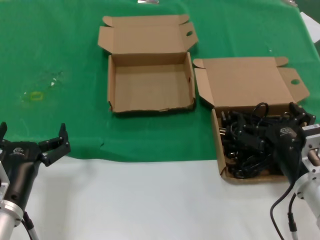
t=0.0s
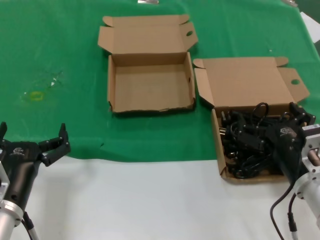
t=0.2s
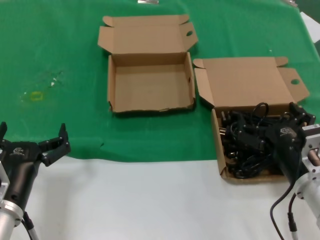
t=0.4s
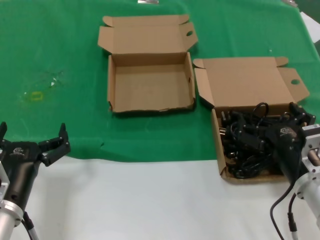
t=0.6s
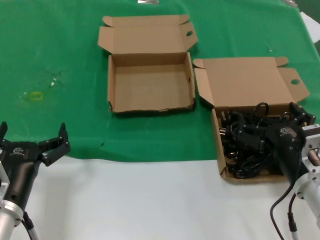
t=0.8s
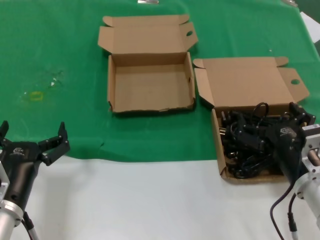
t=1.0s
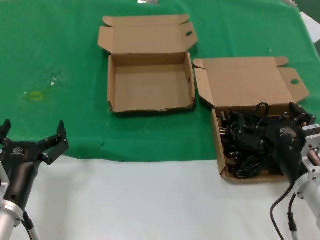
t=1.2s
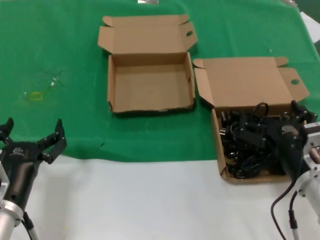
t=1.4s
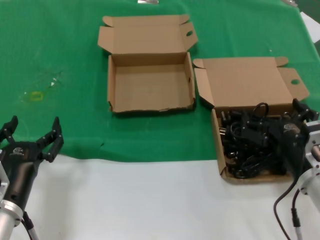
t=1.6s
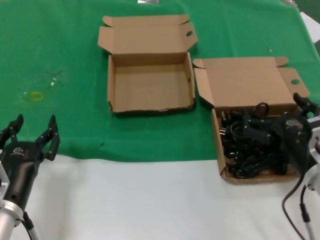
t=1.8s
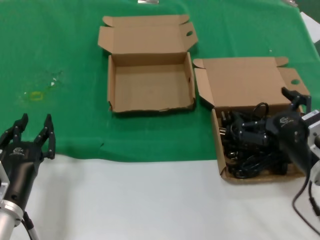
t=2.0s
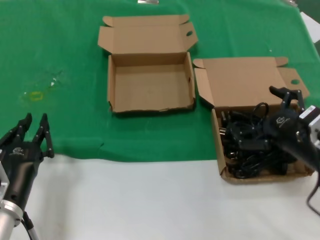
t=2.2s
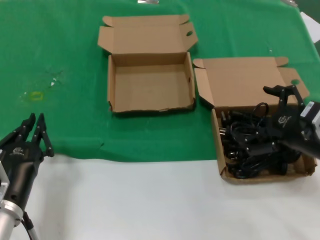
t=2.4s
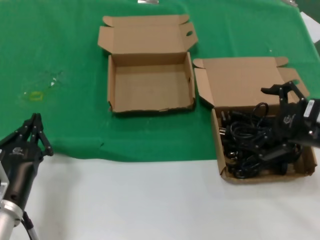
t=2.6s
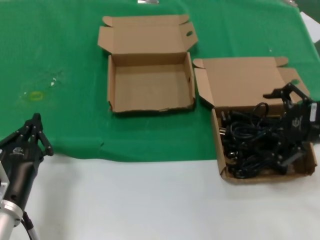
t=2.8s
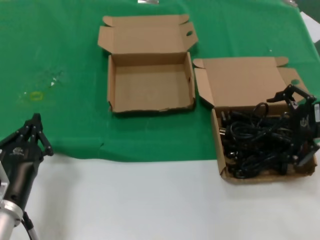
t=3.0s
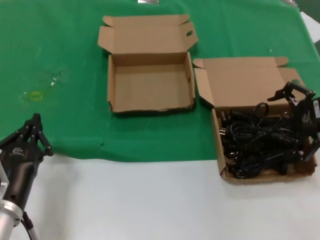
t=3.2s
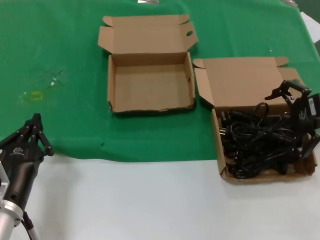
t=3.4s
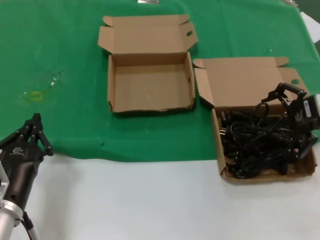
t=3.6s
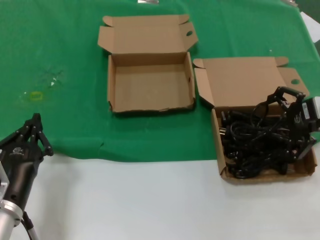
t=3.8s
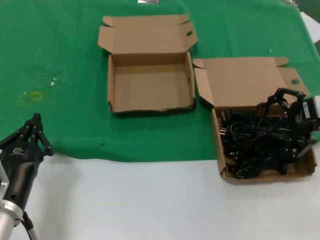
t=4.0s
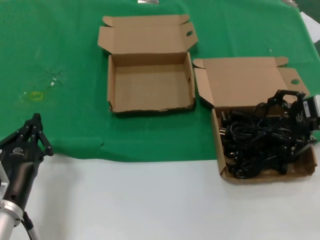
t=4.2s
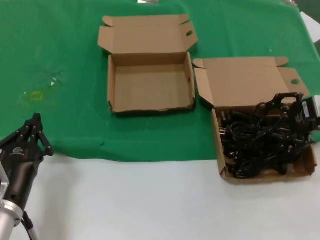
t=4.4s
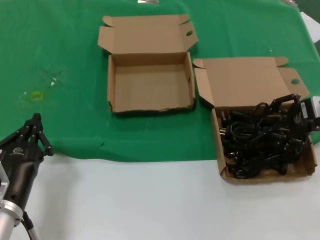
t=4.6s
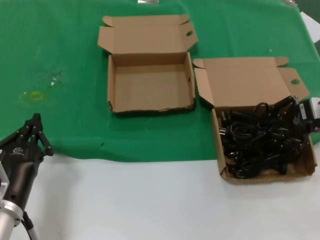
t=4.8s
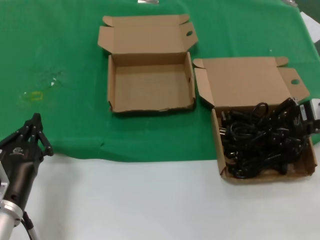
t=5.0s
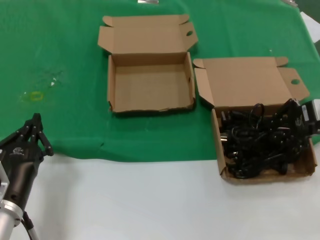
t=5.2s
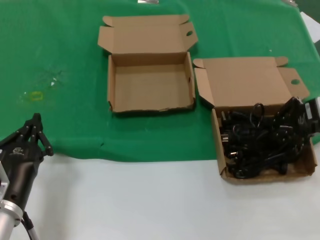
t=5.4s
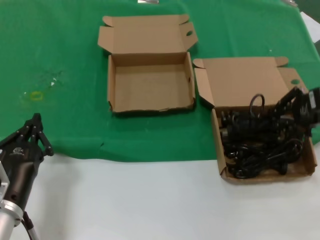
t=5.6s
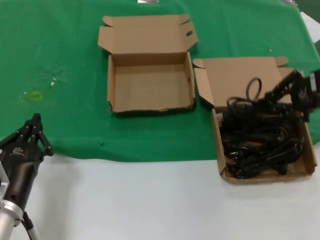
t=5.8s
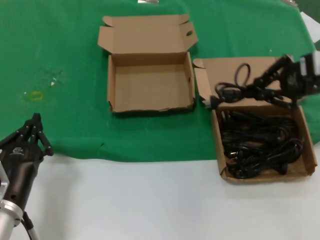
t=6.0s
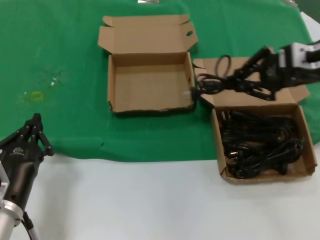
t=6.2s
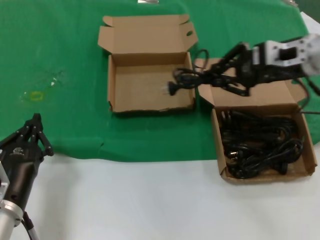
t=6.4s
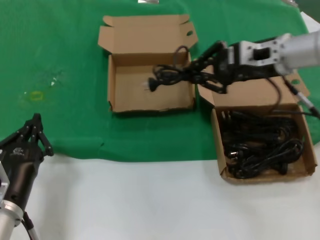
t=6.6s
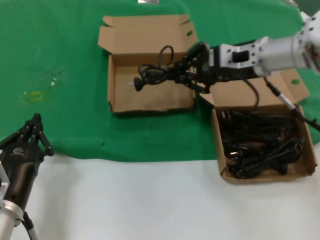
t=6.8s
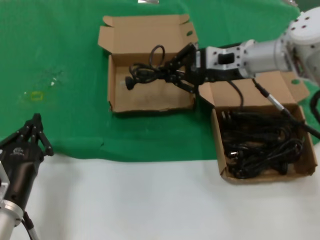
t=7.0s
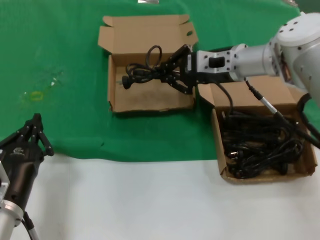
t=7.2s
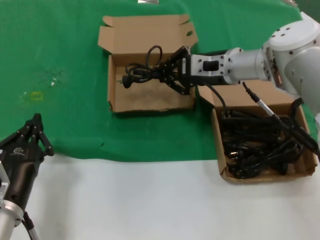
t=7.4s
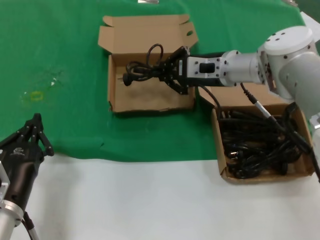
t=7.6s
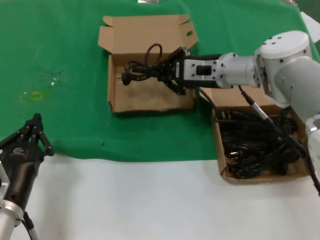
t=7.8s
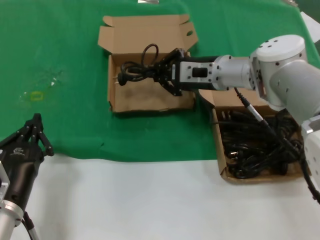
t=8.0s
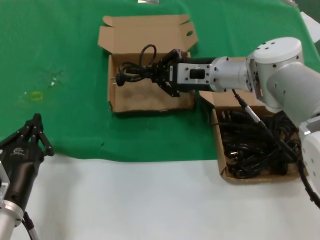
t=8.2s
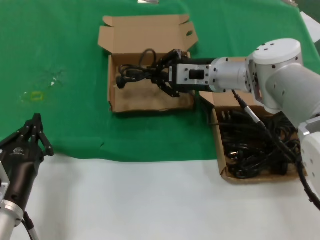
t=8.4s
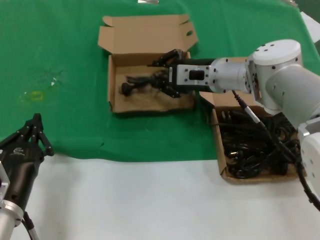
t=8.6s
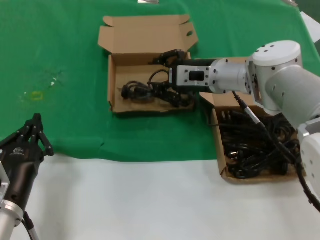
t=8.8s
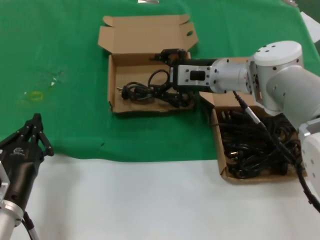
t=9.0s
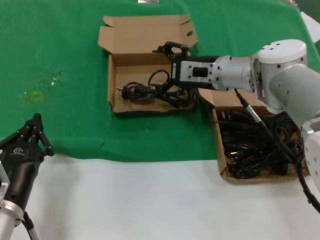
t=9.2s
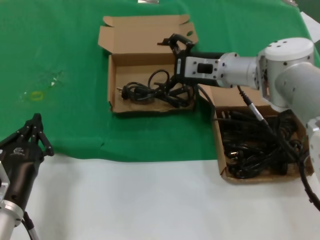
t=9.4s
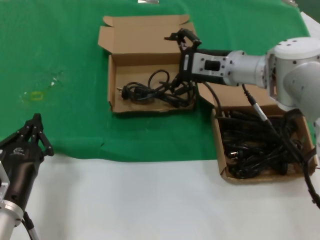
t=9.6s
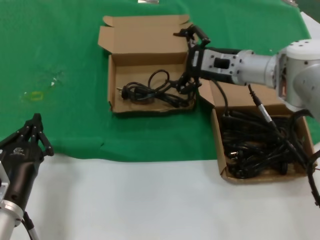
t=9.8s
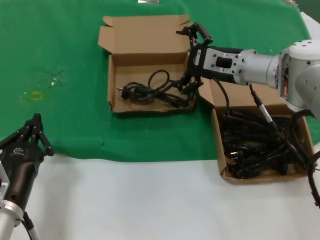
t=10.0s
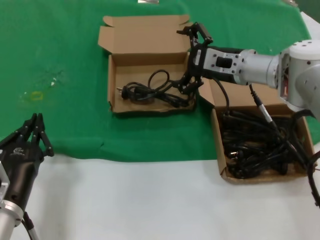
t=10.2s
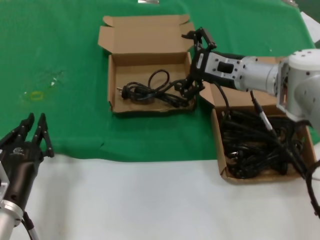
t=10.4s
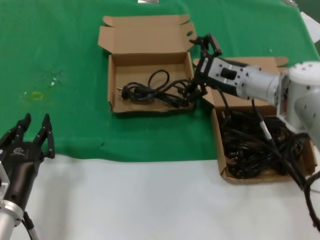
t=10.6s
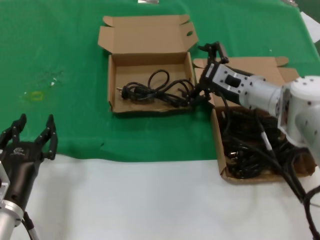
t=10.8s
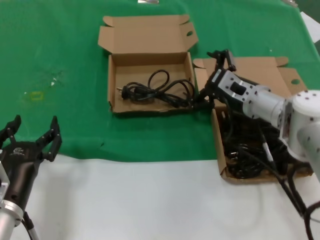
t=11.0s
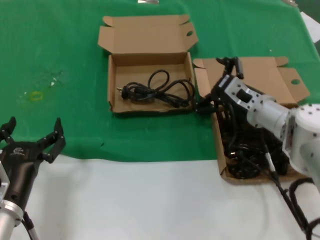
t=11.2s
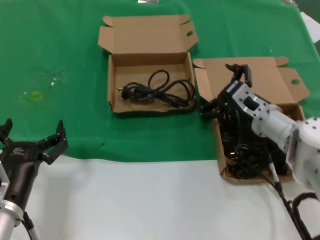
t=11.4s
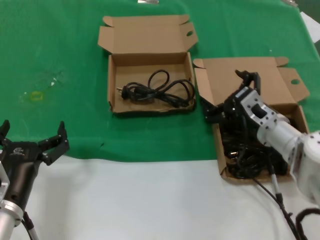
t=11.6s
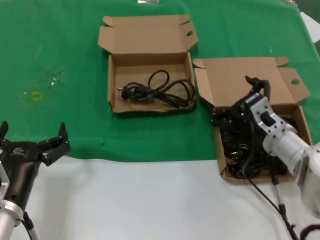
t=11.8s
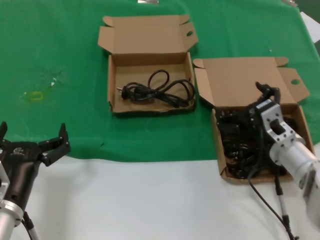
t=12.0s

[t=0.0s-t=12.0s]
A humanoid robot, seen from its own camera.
Task of the whole recording: take the parts from the box containing them and put them into an empty box.
Step, t=0.0s to t=5.2s: Grasp the data cable.
Step, t=5.4s to t=8.6s: Place the data cable in the another box.
t=0.0s to t=1.6s: Both hands stay put.
t=1.6s to t=3.0s: The right hand travels upward, to the right and forward by roughly 20 cm.
t=3.0s to t=4.4s: The right hand heads forward, covering approximately 5 cm.
t=4.4s to t=6.0s: The right hand goes some 10 cm upward.
t=6.0s to t=7.6s: The right hand heads to the left, forward and downward, covering roughly 25 cm.
t=7.6s to t=9.0s: The hands make only small movements.
t=9.0s to t=10.4s: The right hand shifts approximately 5 cm to the right.
t=10.4s to t=12.0s: The right hand is displaced backward and downward by about 20 cm.

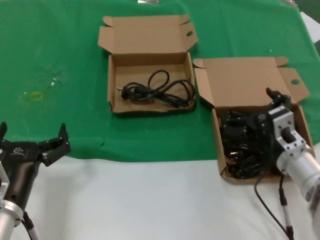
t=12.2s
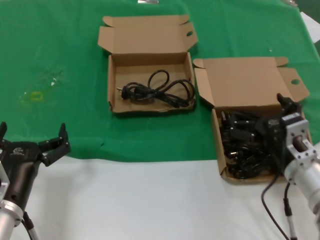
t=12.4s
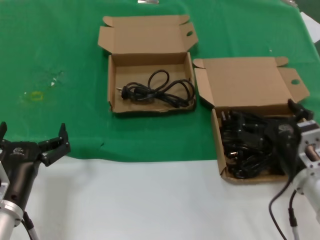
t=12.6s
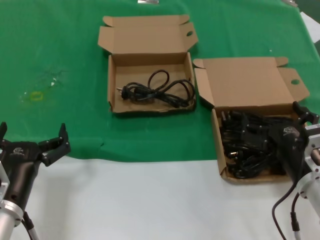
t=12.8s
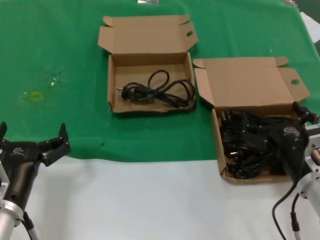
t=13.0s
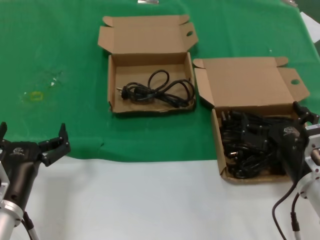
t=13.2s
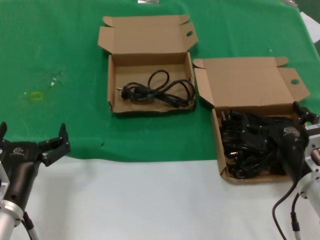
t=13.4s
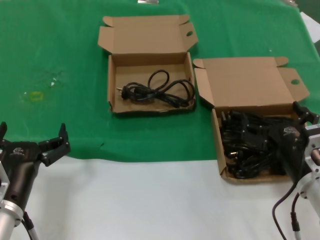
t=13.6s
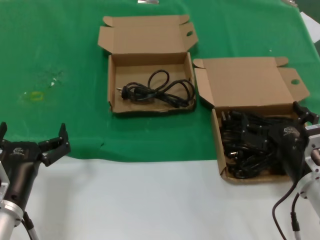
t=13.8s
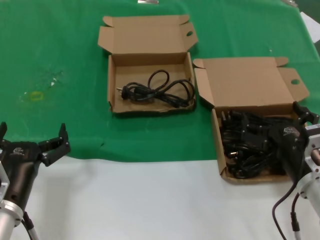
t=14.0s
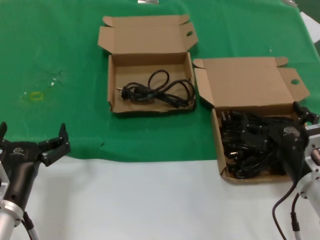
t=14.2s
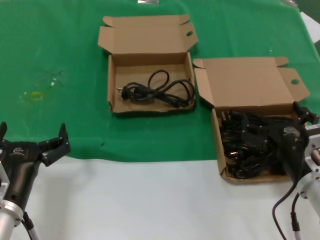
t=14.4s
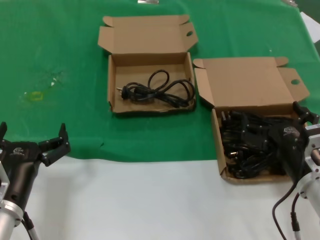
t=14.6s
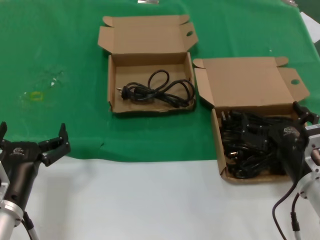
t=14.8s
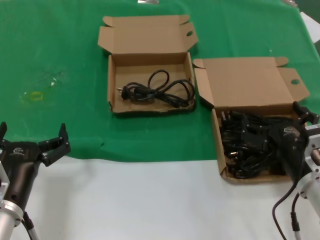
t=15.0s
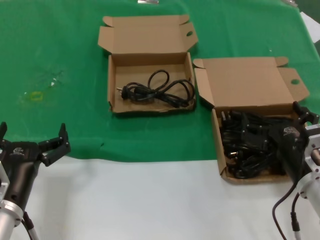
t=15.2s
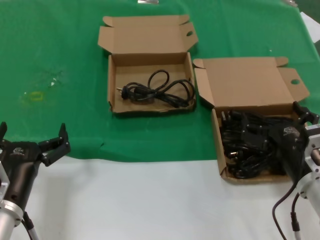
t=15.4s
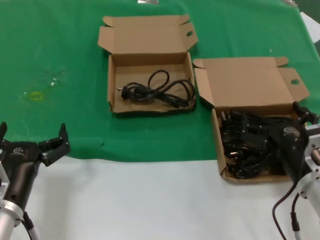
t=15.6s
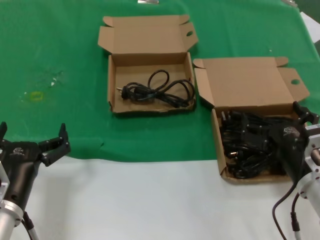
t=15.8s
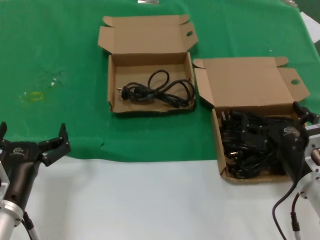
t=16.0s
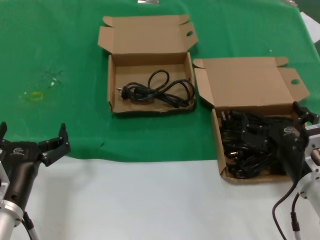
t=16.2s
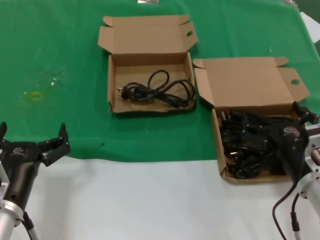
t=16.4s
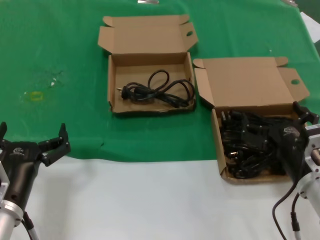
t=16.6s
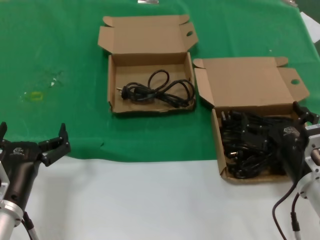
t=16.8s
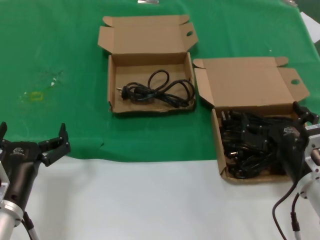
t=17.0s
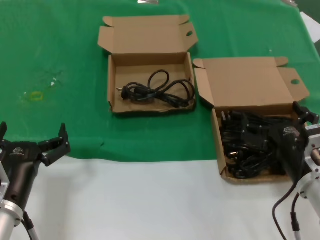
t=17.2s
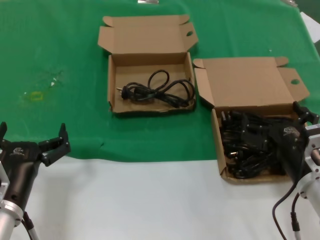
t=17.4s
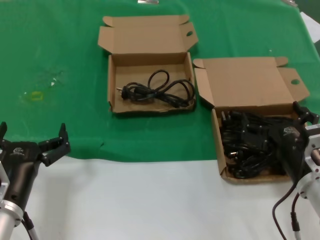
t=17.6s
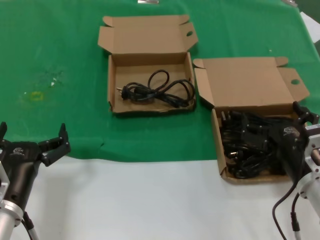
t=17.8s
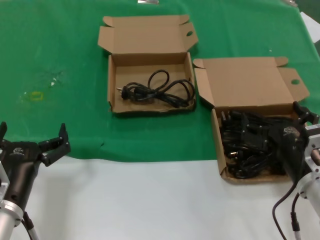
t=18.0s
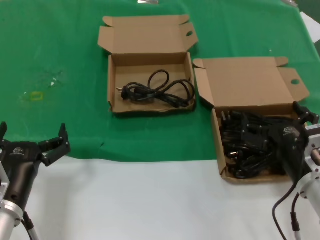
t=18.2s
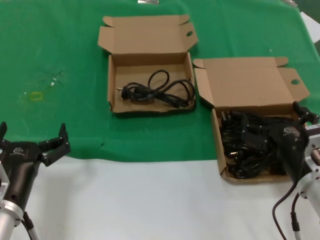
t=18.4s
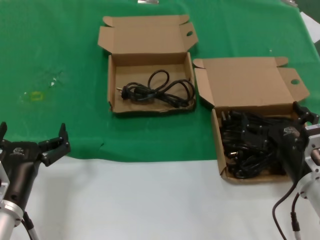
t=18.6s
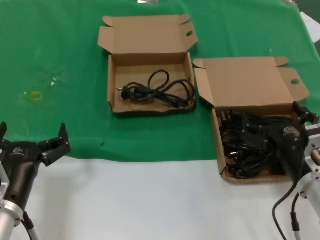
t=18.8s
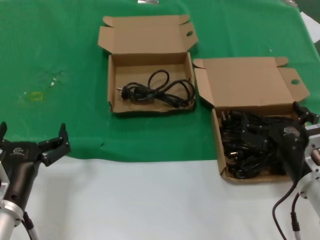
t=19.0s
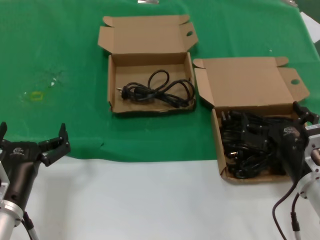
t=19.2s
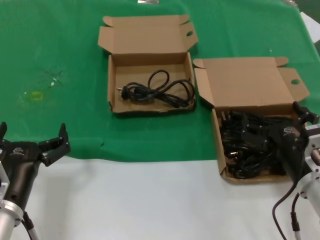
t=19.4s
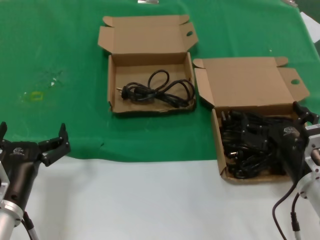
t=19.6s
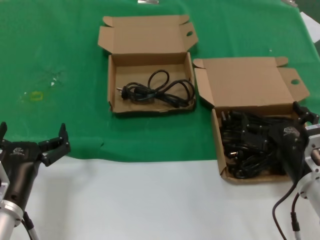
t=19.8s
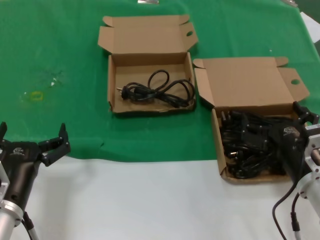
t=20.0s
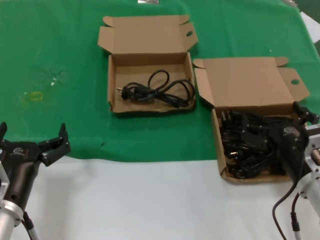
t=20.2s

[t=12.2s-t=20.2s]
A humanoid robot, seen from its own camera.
Task of the whole recording: take the parts from the box containing them and put them into an empty box.
t=12.2s to t=13.8s: The right hand goes approximately 10 cm backward.
t=13.8s to t=20.2s: Both hands stay put.

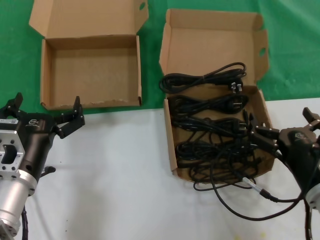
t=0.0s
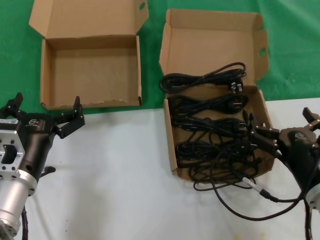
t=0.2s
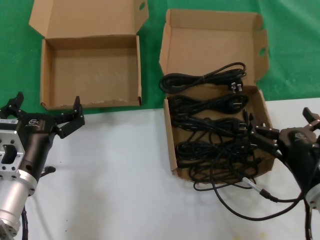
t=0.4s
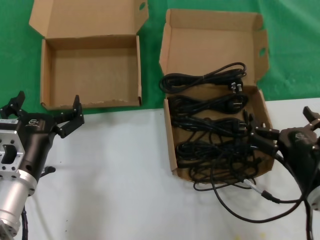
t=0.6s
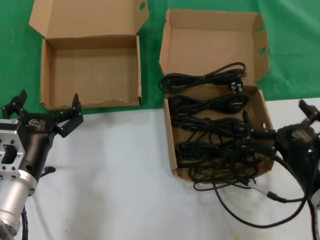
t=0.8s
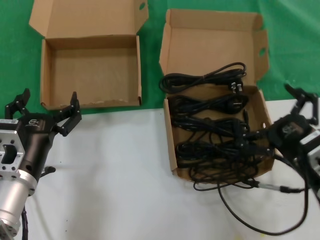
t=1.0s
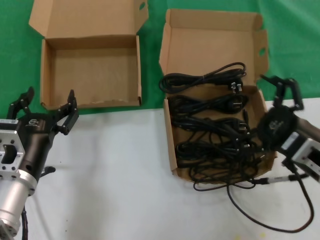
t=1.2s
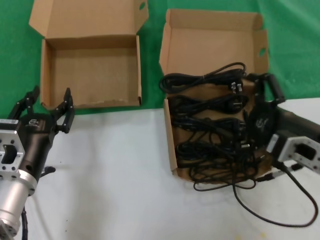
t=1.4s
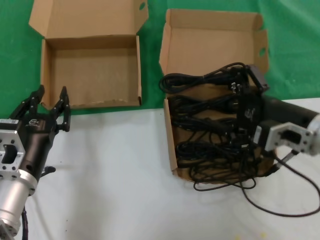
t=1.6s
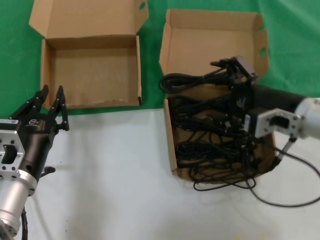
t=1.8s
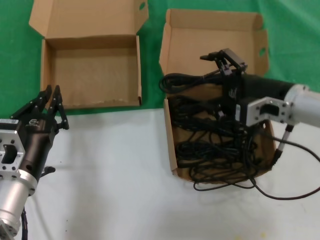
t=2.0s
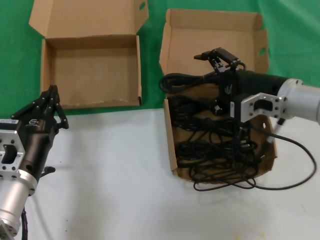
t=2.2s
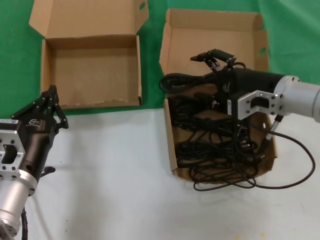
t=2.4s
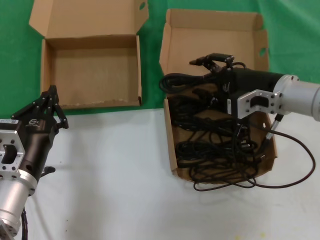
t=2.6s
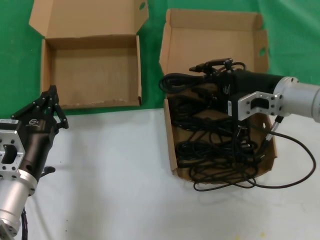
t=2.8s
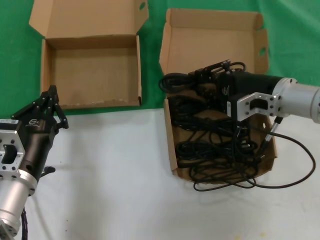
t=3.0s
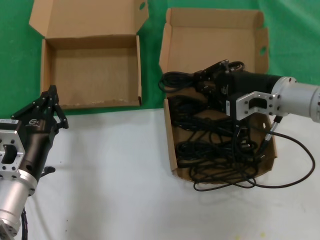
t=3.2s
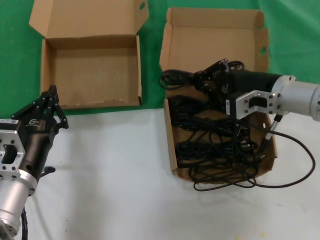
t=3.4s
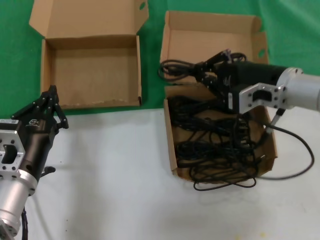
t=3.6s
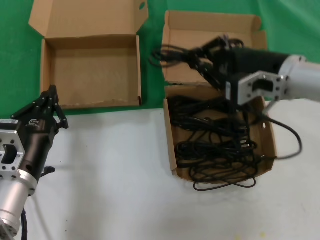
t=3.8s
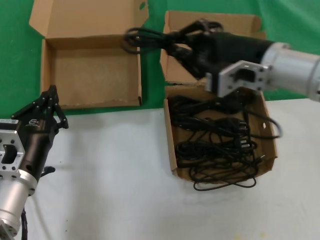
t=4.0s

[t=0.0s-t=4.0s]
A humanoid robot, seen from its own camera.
Task of the whole recording: take the parts from the box containing them and put them into an empty box.
Step, t=0.0s to t=3.0s: Grasp the data cable.
t=0.0s to t=1.4s: The right hand heads upward, covering roughly 10 cm.
t=1.4s to t=2.6s: The right hand shifts roughly 15 cm forward.
t=2.6s to t=4.0s: The right hand moves upward and to the left, some 10 cm.
